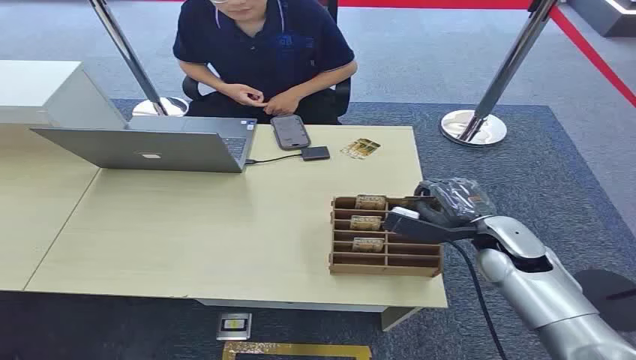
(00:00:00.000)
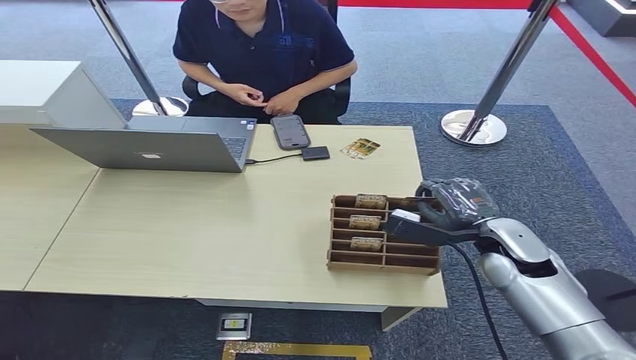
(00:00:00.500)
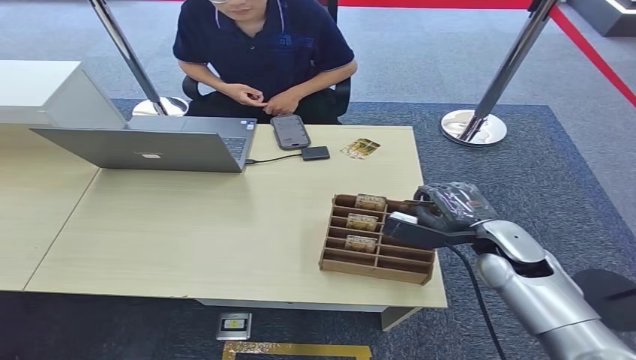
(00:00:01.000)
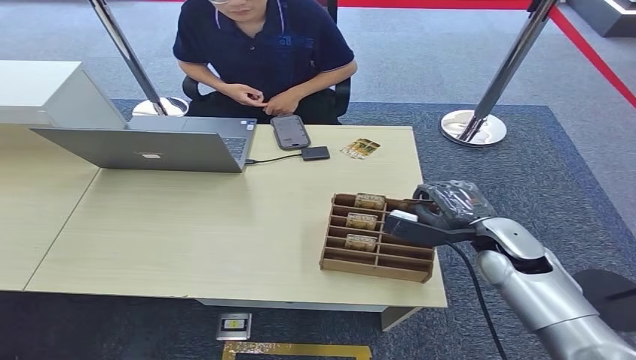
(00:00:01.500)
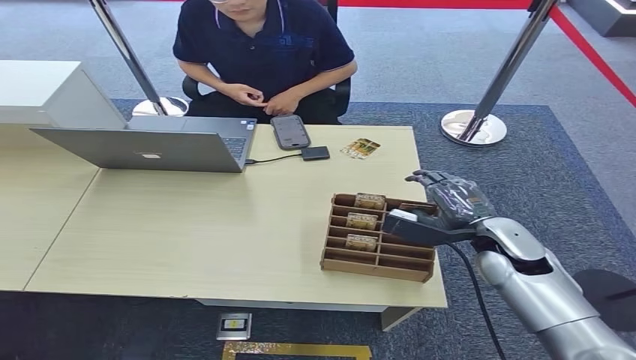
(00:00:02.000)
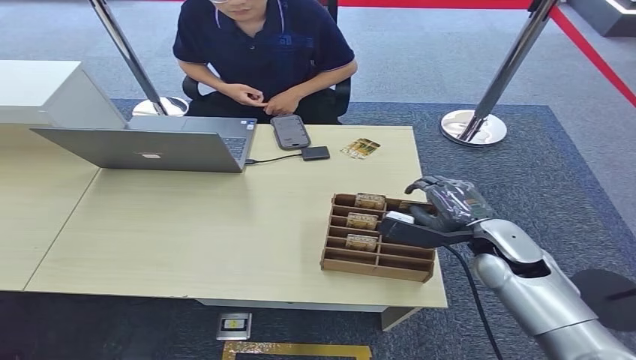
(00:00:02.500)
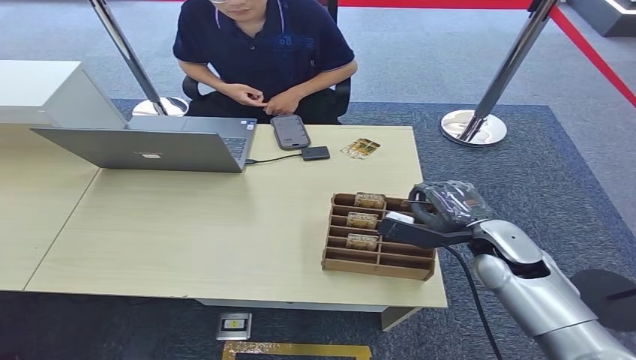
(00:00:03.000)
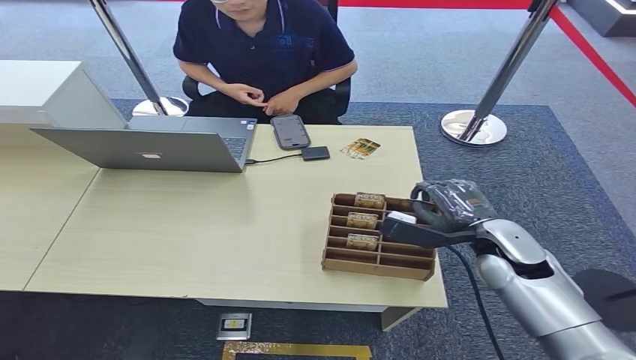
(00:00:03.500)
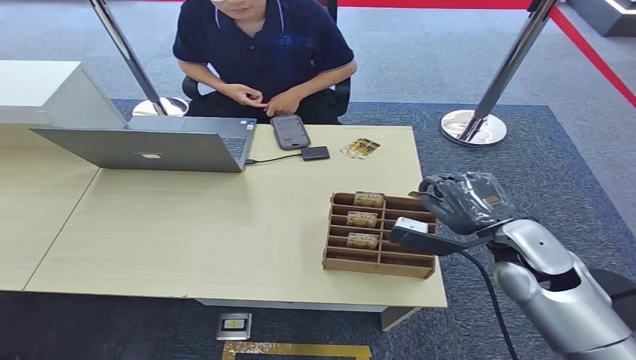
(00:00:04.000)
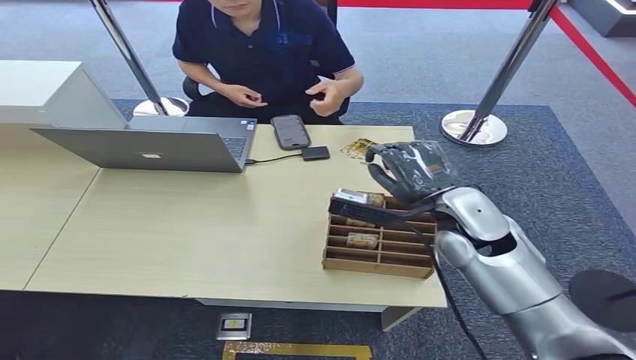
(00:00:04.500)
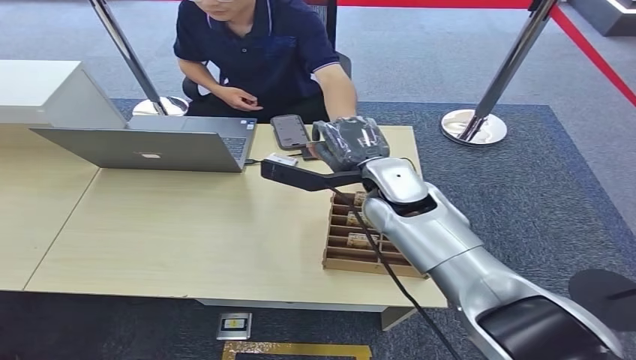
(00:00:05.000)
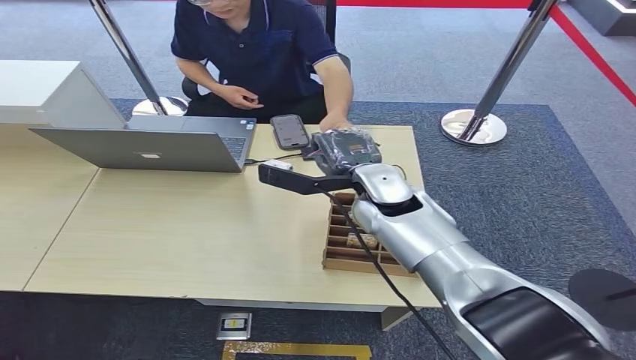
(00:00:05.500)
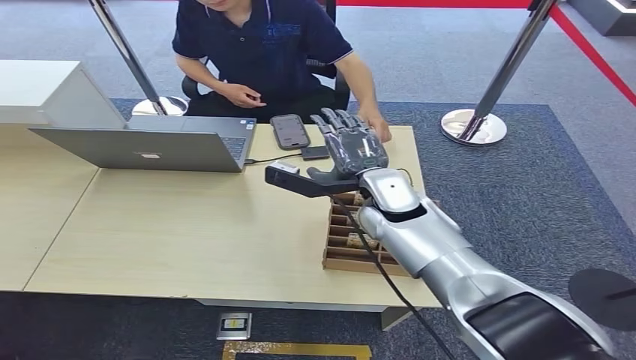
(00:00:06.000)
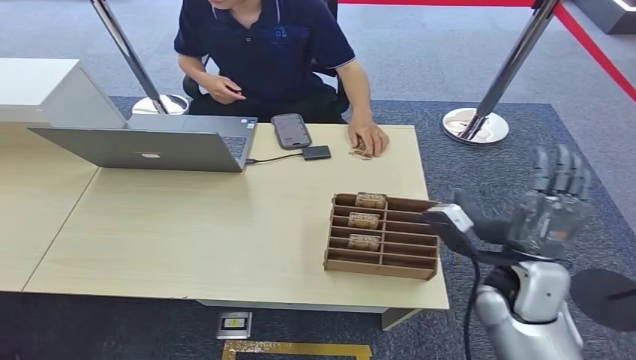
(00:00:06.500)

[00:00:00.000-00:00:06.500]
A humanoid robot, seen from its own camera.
Step, 00:00:00.000 to 00:00:04.000: Pick up the room card from the card holder.
Step, 00:00:04.500 to 00:00:06.500: Hand the room card to the target.
00:00:02.000 to 00:00:04.500: The right hand travels to the left and upward by about 10 cm.
00:00:04.500 to 00:00:06.500: The right hand heads backward and downward, covering approximately 10 cm, and moves approximately 10 cm to the left and comes back.
